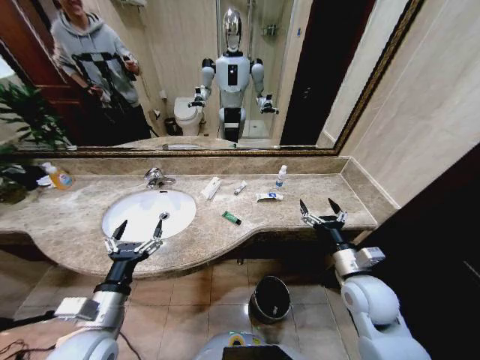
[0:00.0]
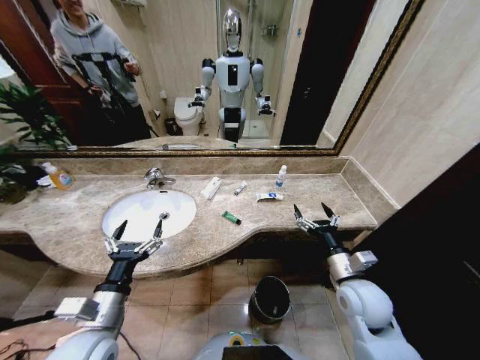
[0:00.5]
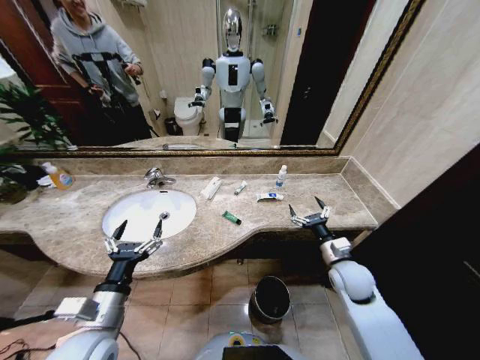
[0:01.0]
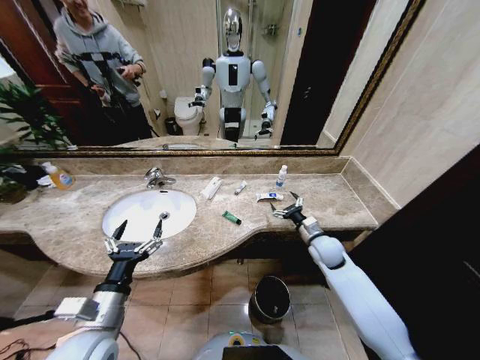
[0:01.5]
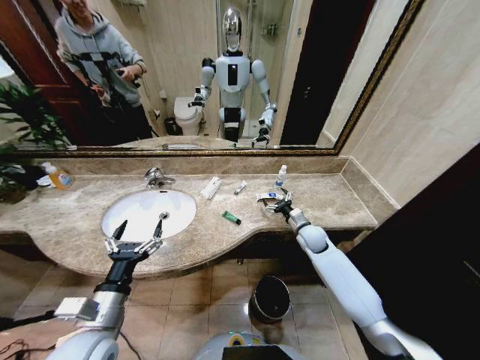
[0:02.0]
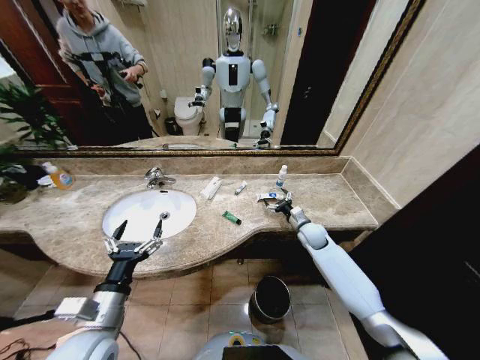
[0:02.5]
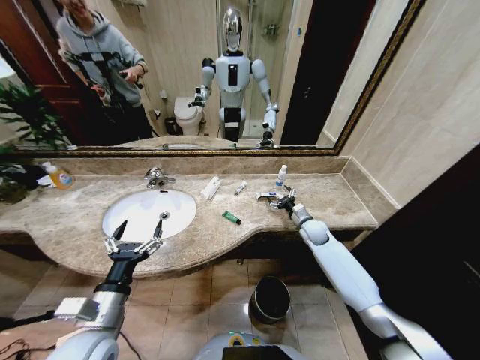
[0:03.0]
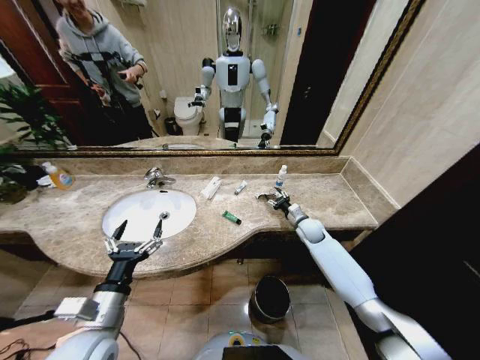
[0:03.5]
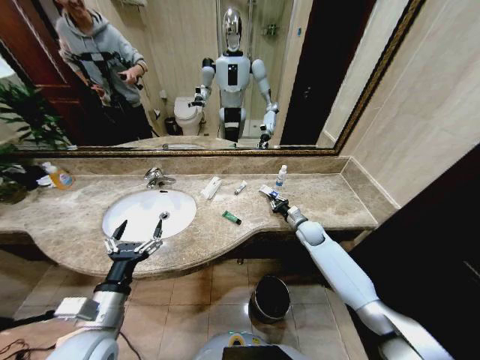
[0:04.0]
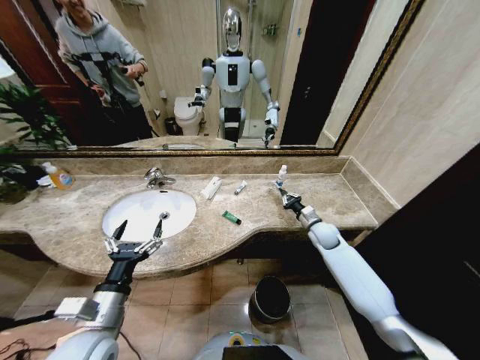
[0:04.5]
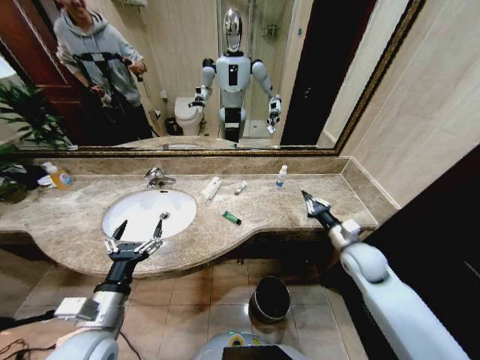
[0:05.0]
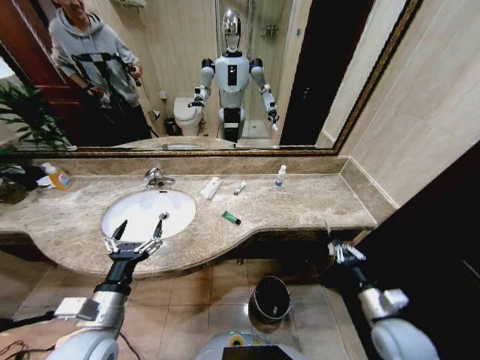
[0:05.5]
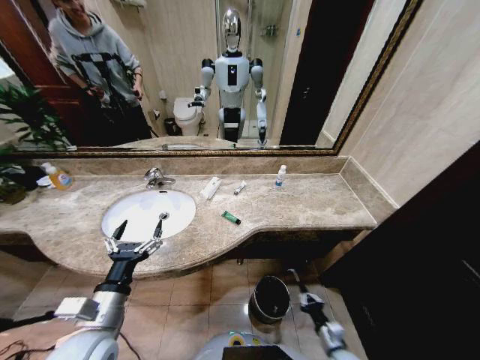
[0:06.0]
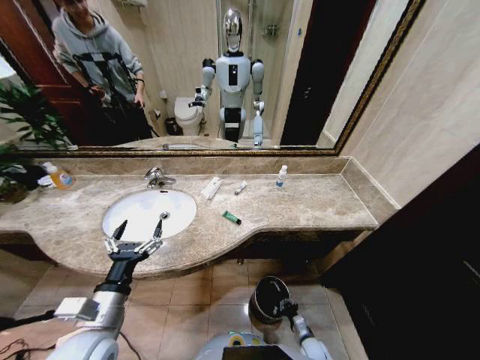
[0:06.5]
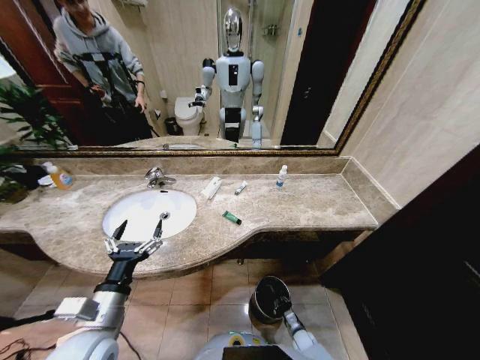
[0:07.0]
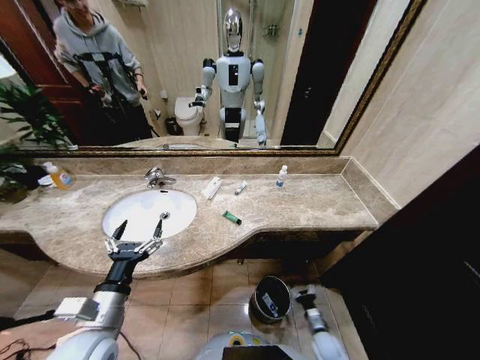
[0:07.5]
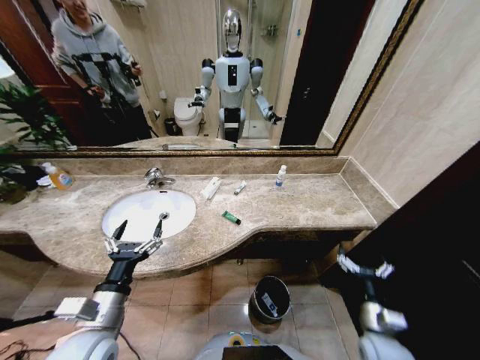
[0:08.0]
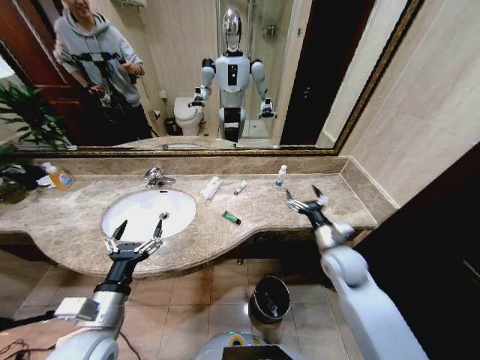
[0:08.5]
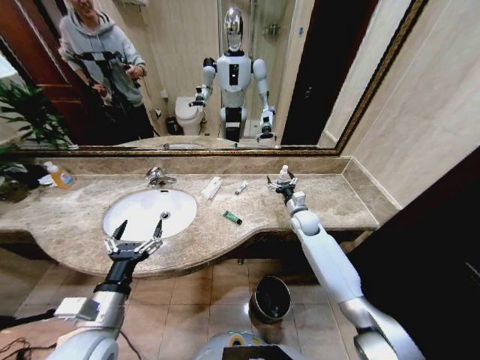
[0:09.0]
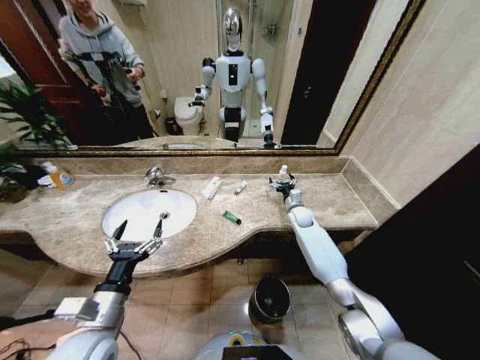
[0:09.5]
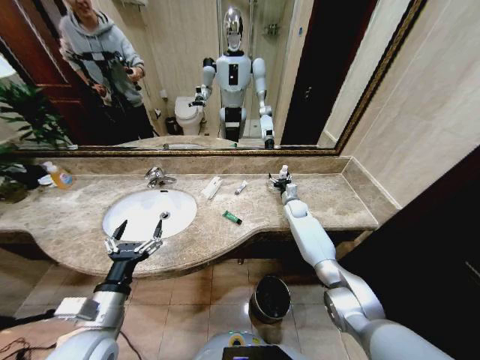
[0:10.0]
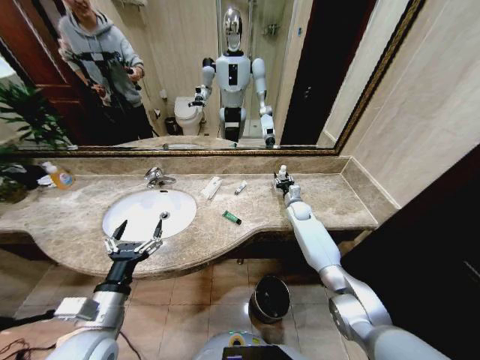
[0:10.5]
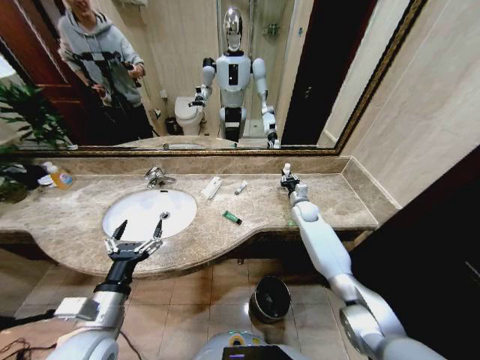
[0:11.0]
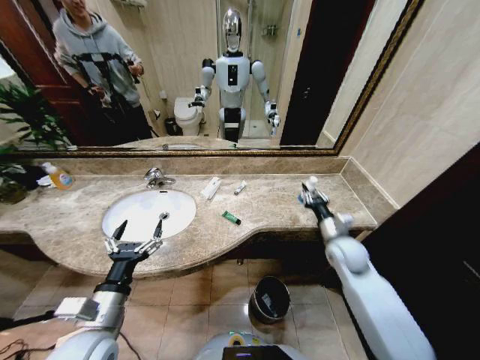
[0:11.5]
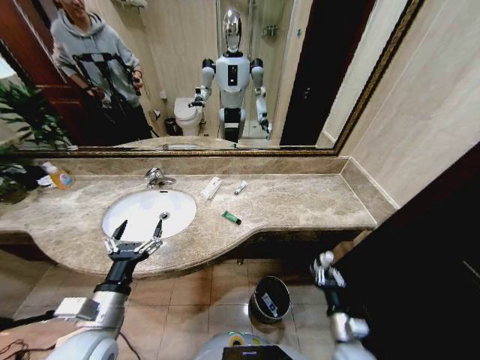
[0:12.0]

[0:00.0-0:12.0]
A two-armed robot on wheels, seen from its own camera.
Task of the whole recording: Pick up the trash from the sink and place it in the trash bin.
0:02.0 to 0:04.0: The right gripper closes.
0:04.0 to 0:06.0: The right gripper is displaced backward and downward by some 40 cm.
0:06.0 to 0:08.0: The right gripper heads upward, covering roughly 15 cm, and opens up.
0:08.0 to 0:10.0: The right gripper travels forward by about 50 cm.
0:10.0 to 0:12.0: The right gripper heads backward, covering some 50 cm, and closes up.

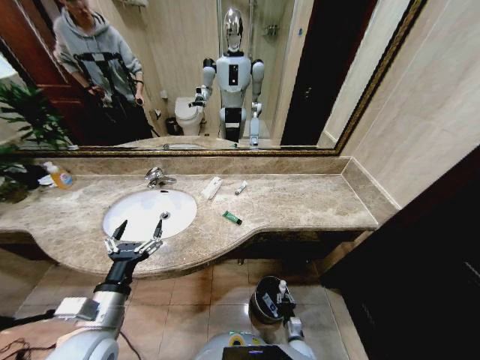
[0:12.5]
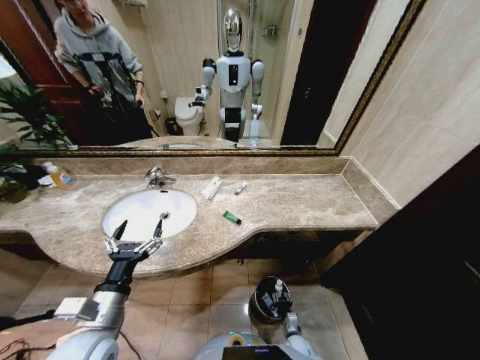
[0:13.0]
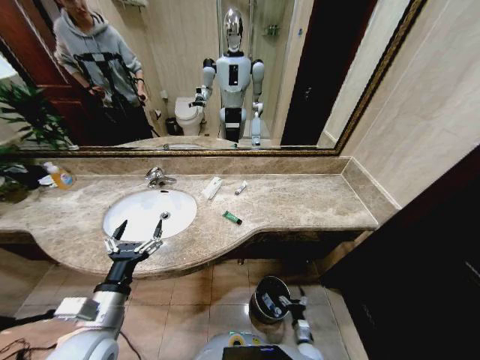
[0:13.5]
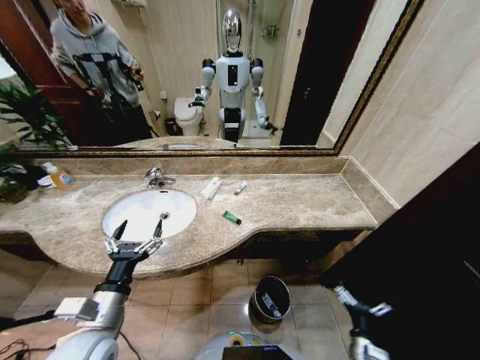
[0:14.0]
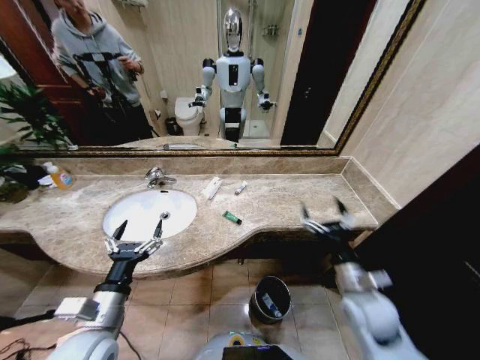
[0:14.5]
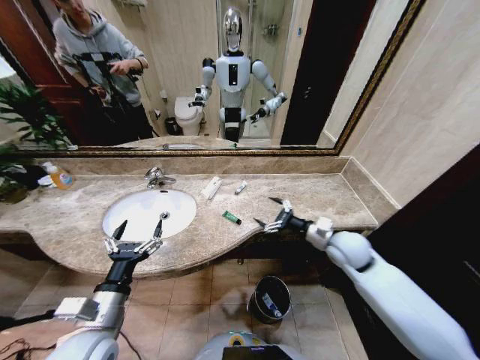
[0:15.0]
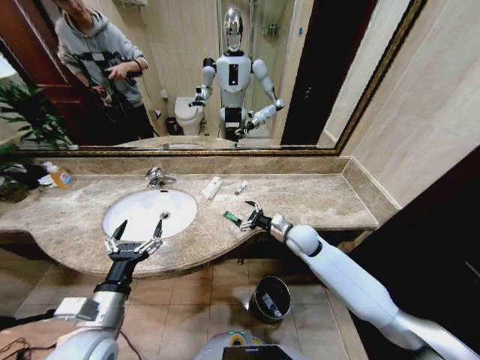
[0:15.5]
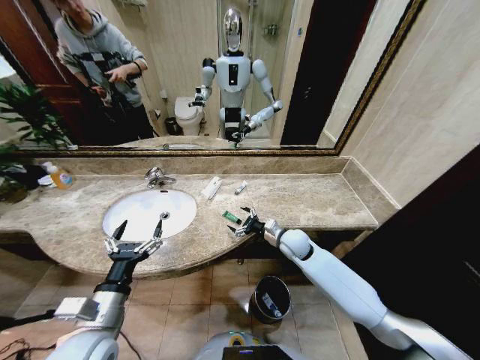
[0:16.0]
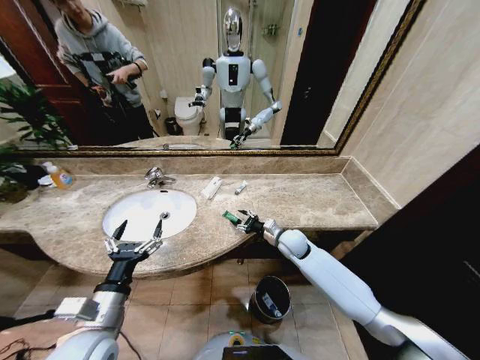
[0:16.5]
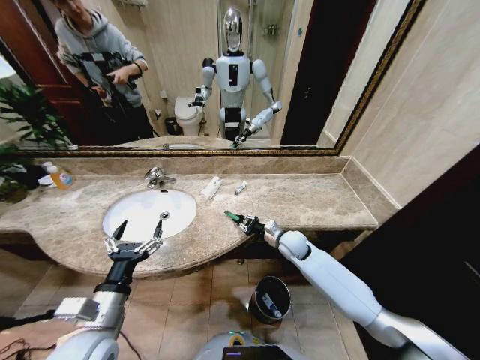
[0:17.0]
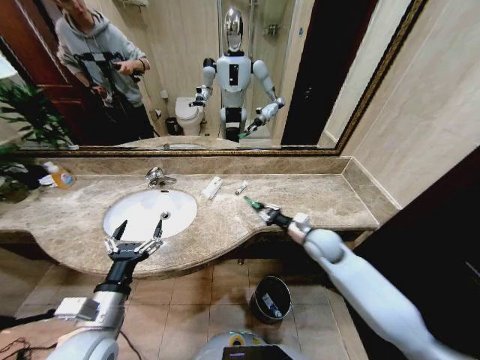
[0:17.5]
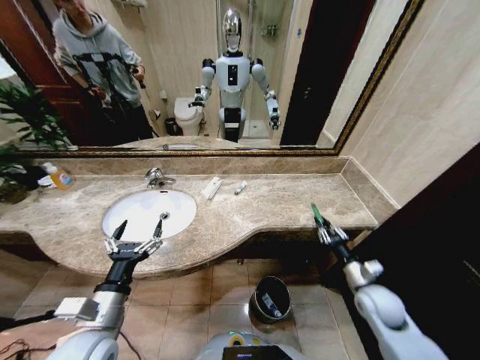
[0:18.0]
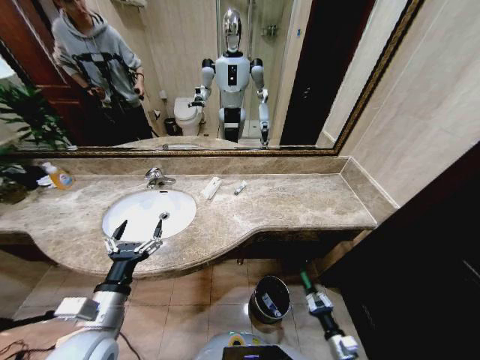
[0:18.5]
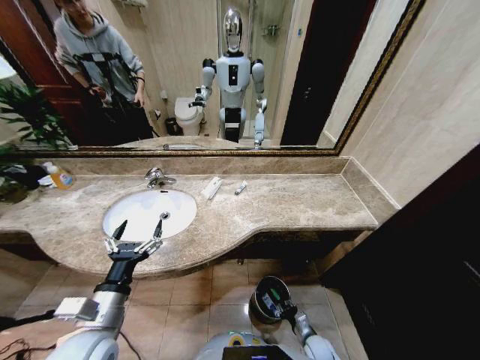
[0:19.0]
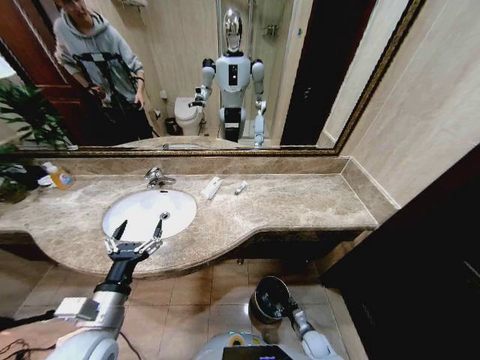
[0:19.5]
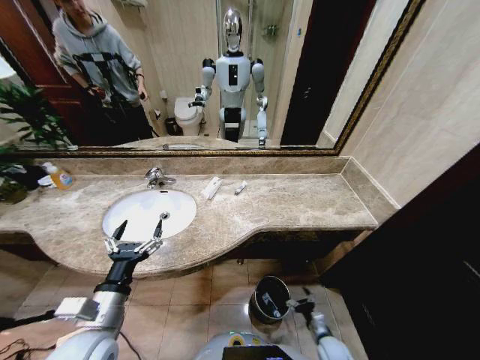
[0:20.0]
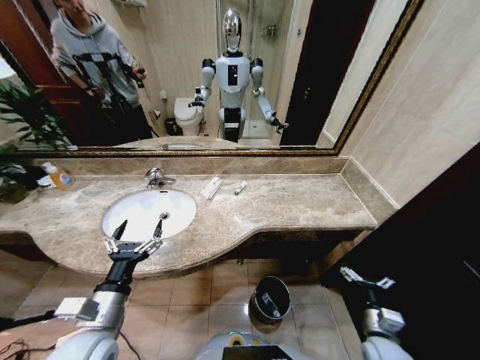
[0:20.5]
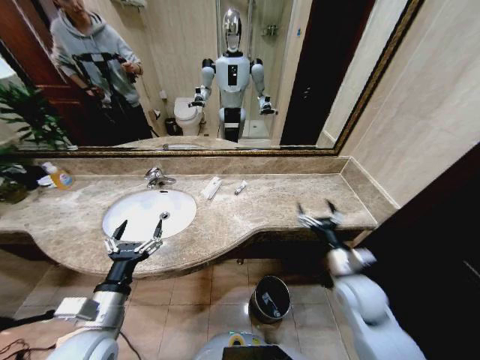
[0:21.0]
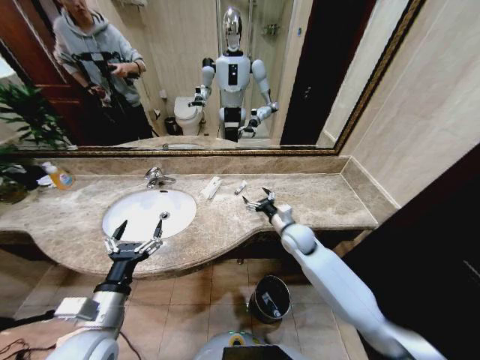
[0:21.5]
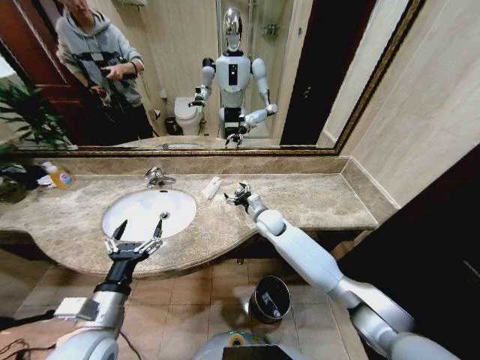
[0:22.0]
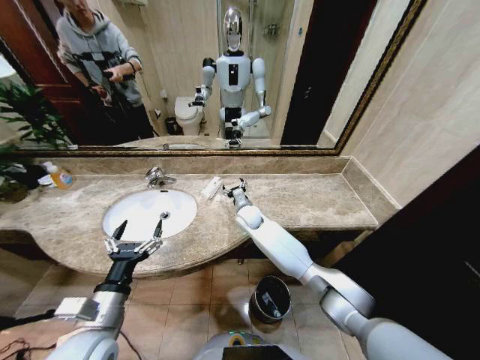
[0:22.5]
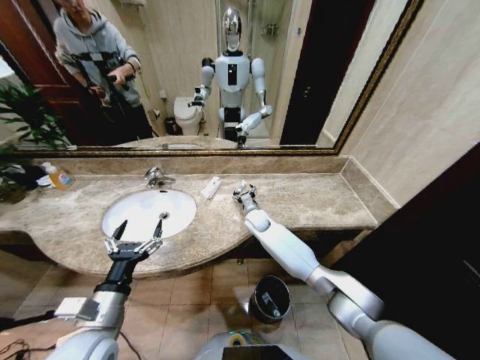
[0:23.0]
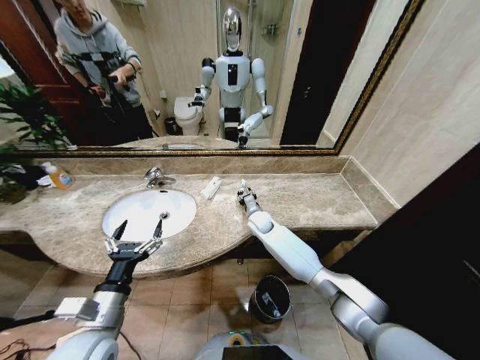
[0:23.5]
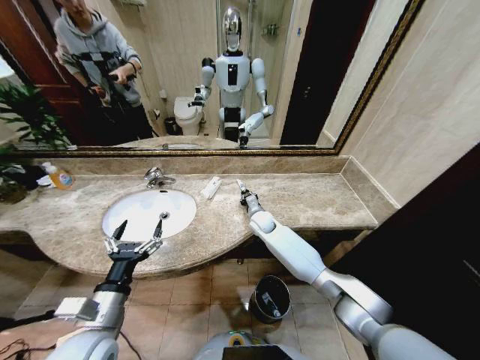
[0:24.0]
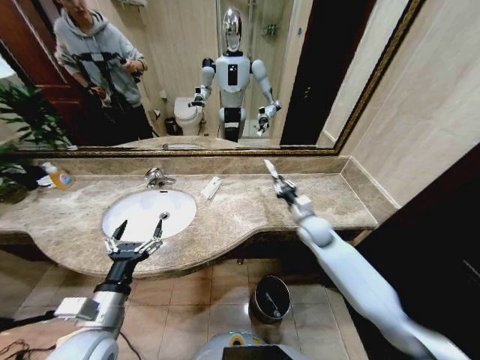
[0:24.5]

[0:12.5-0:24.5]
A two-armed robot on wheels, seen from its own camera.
Task of the whole recording: Pick up the trash from the sink and place it in the trash bin.
0:12.5 to 0:14.5: The right gripper heads upward, covering about 40 cm, and opens.
0:14.5 to 0:16.5: The right gripper goes about 20 cm forward and to the left, and closes up.
0:16.5 to 0:18.5: The right gripper moves backward, downward and to the right, approximately 40 cm, and closes.
0:18.5 to 0:20.5: The right gripper is displaced upward by about 15 cm, and opens up.
0:20.5 to 0:22.5: The right gripper heads forward and to the left, covering approximately 50 cm.
0:22.5 to 0:24.5: The right gripper is displaced to the right and backward by roughly 20 cm, and closes its fingers.

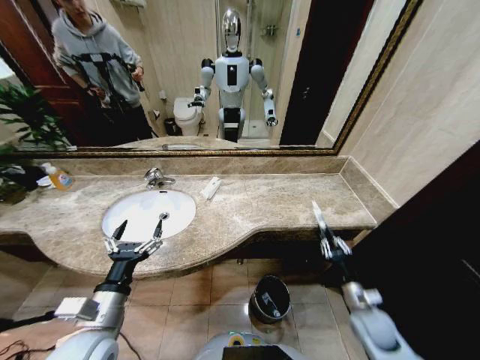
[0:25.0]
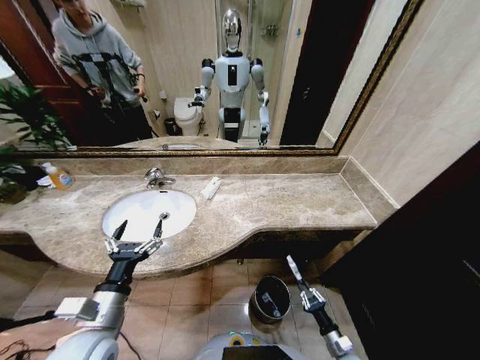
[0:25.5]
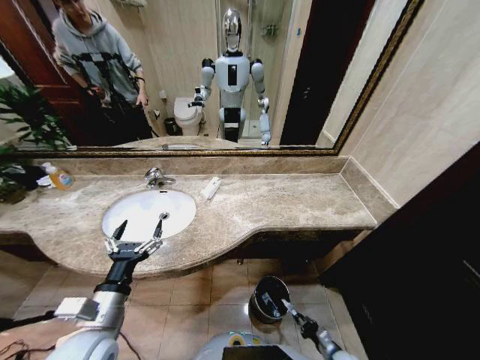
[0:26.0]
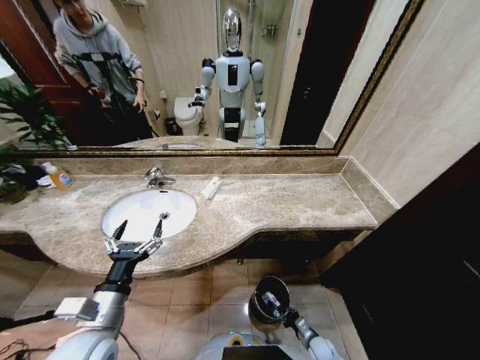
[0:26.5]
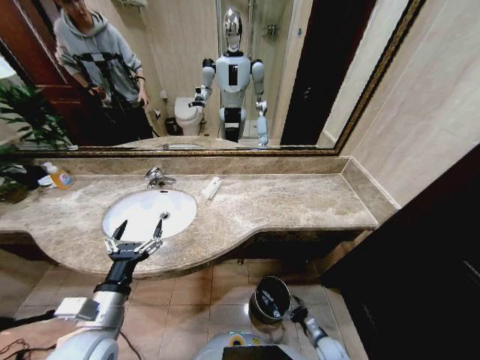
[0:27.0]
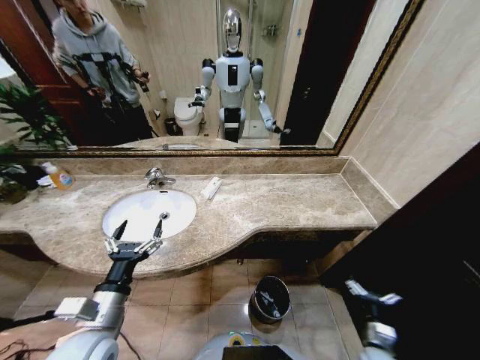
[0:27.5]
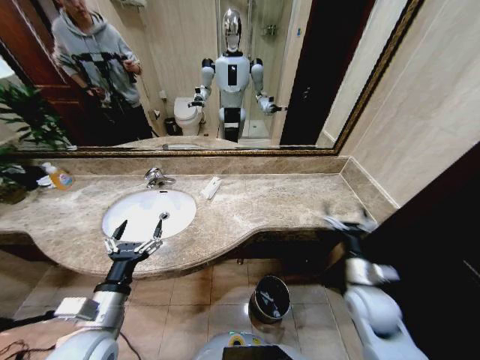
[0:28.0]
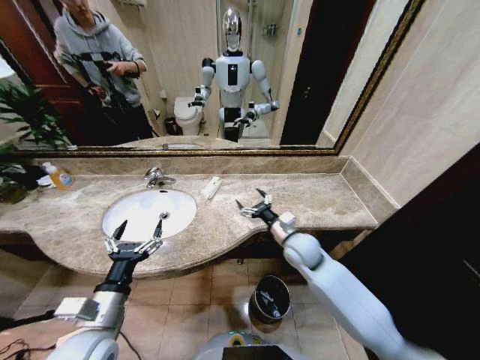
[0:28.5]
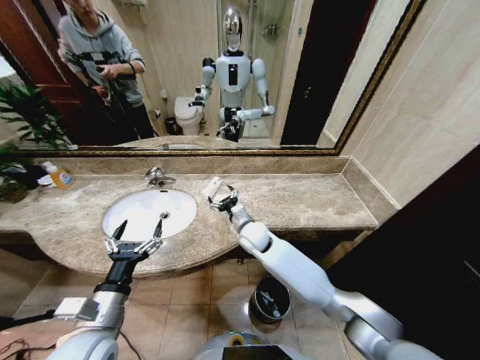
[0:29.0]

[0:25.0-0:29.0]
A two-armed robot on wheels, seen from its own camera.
Task of the whole recording: Pick up the trash from the sink and place it in the trash bin.
0:25.0 to 0:27.0: The right gripper heads downward, covering roughly 25 cm, and opens up.
0:27.0 to 0:29.0: The right gripper travels upward, to the left and forward by roughly 50 cm.
